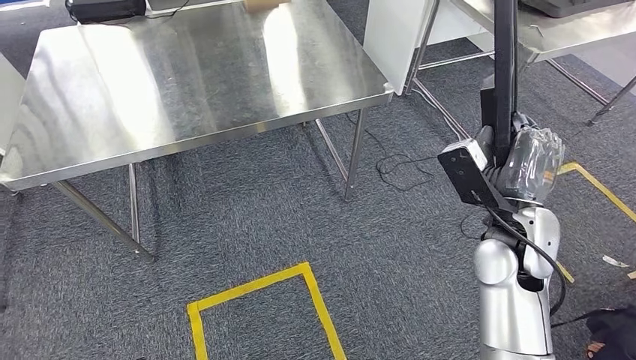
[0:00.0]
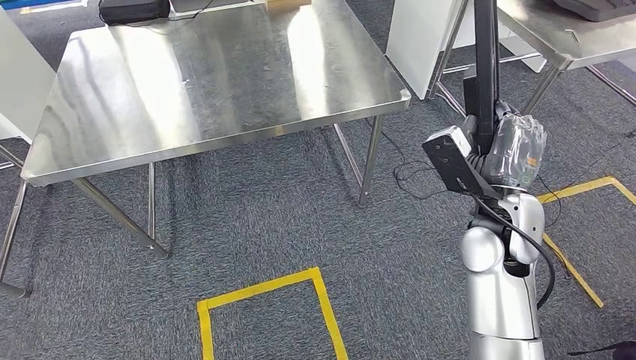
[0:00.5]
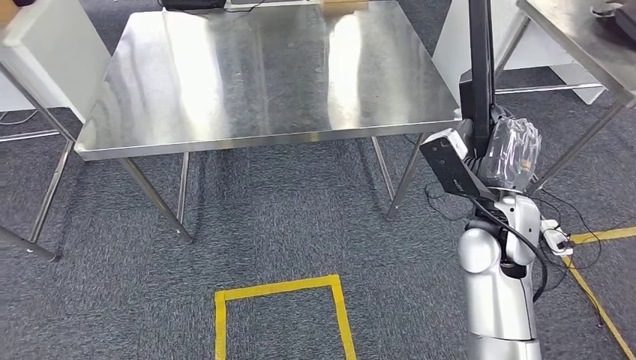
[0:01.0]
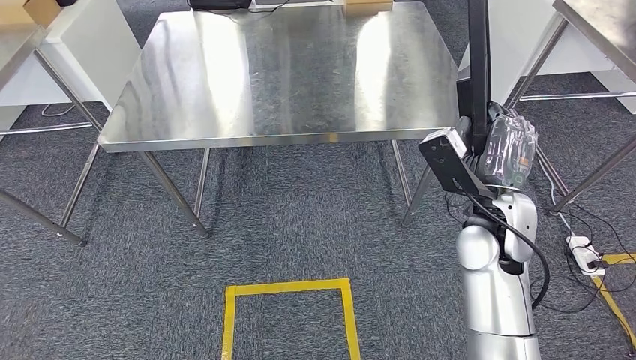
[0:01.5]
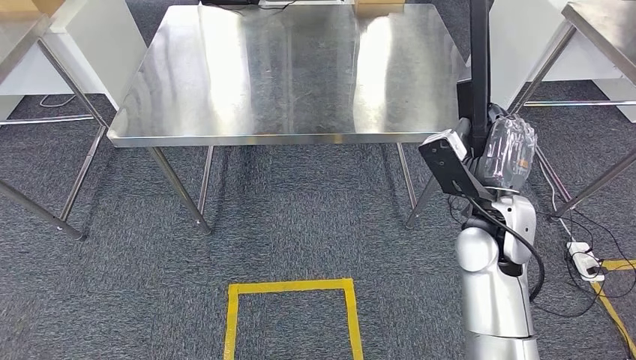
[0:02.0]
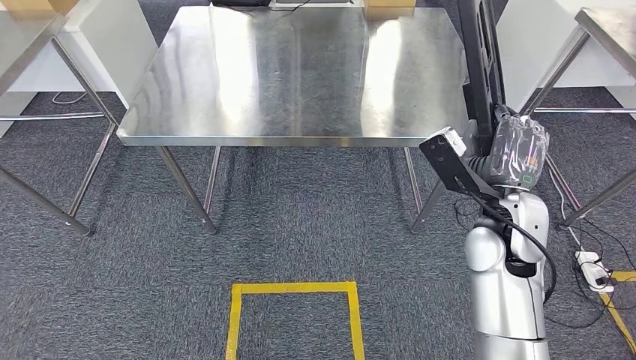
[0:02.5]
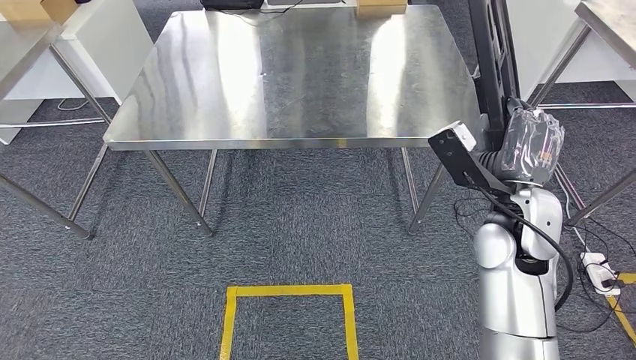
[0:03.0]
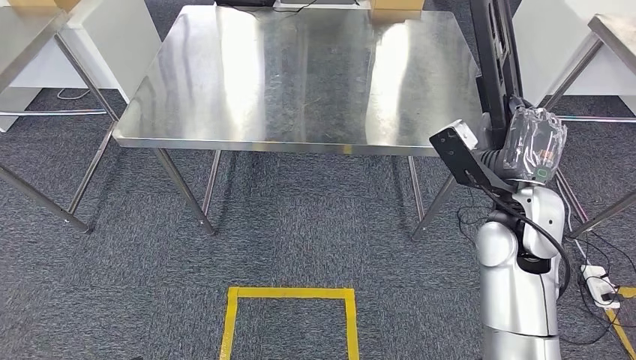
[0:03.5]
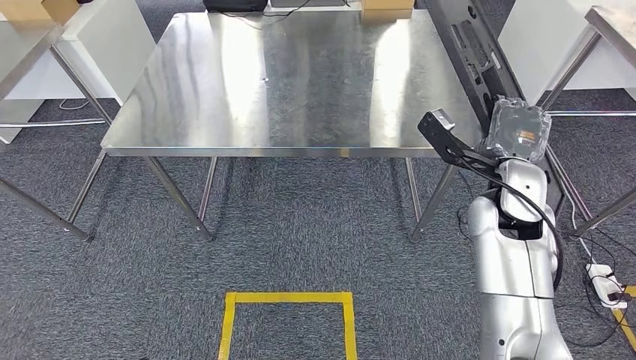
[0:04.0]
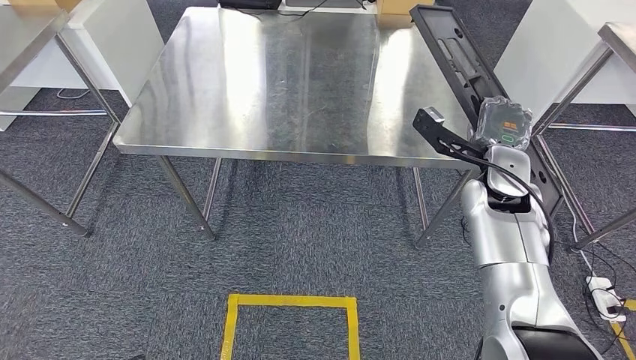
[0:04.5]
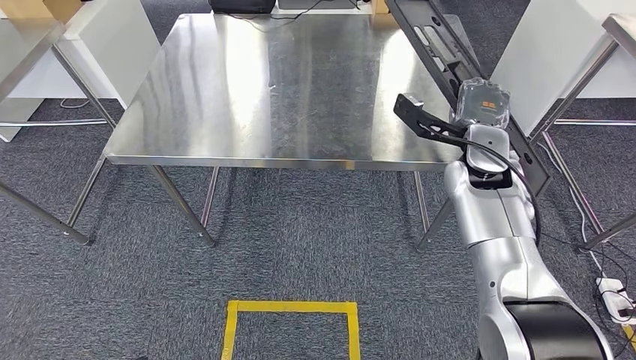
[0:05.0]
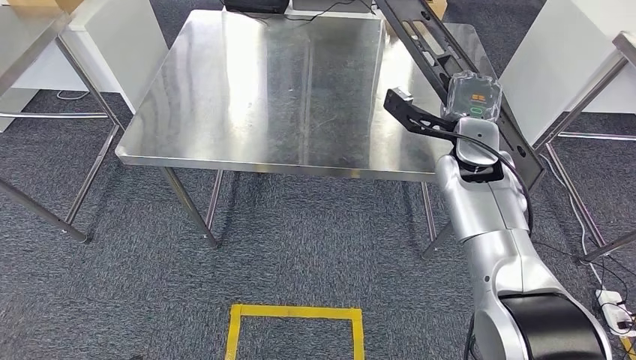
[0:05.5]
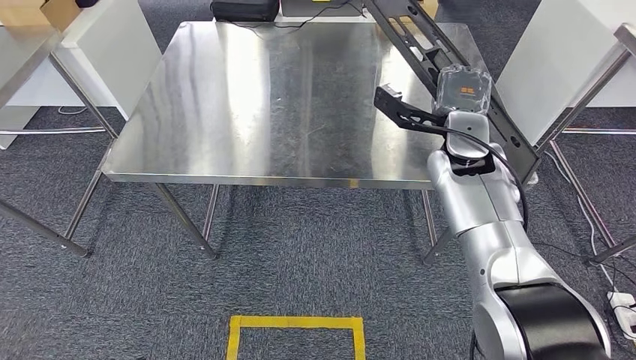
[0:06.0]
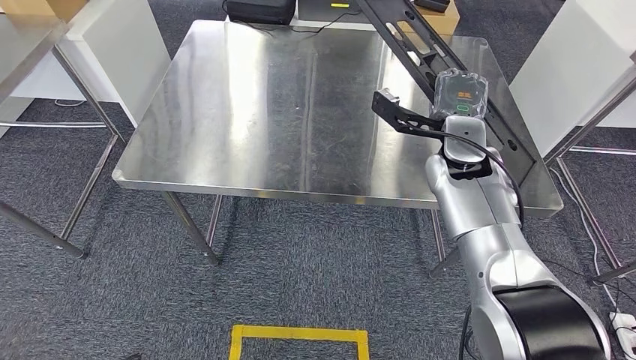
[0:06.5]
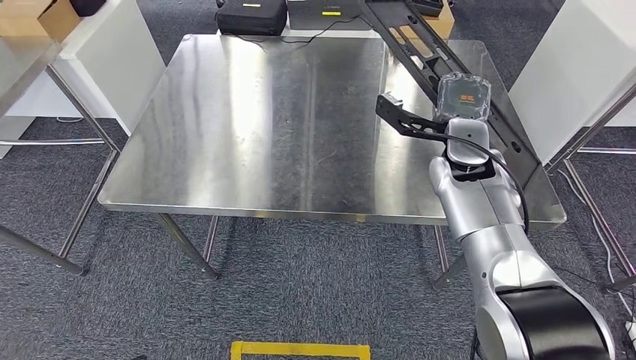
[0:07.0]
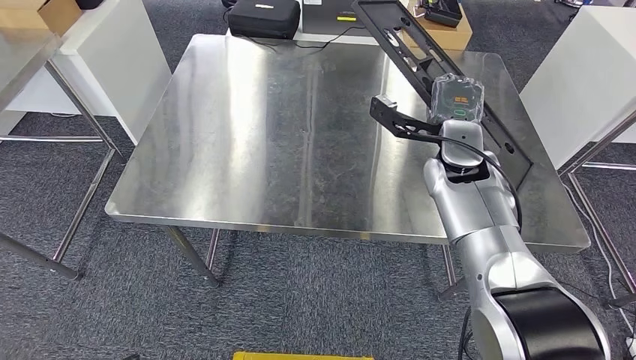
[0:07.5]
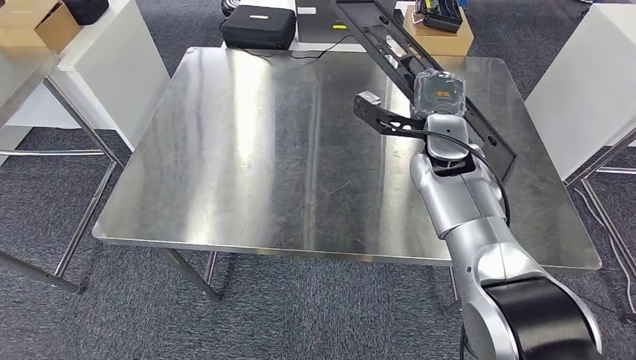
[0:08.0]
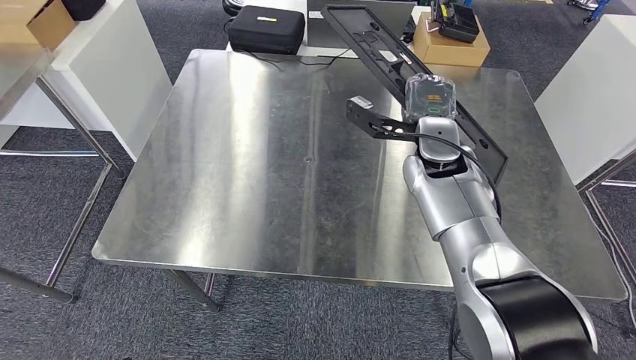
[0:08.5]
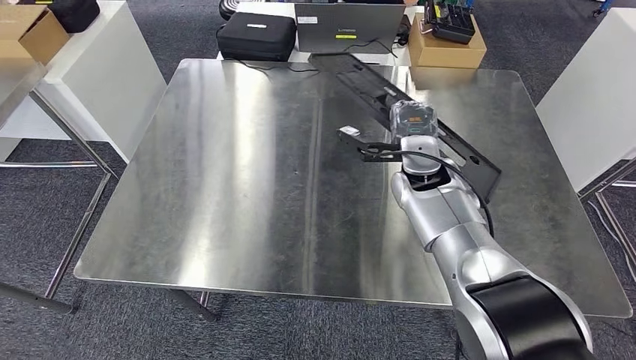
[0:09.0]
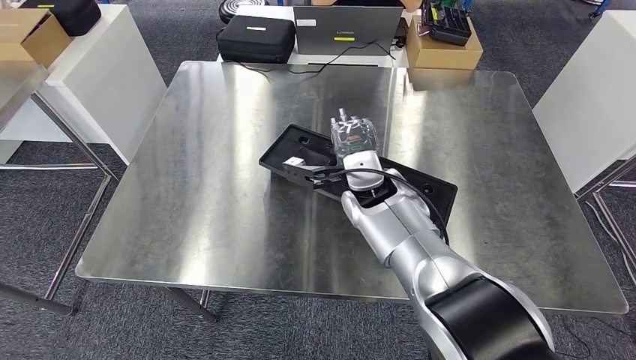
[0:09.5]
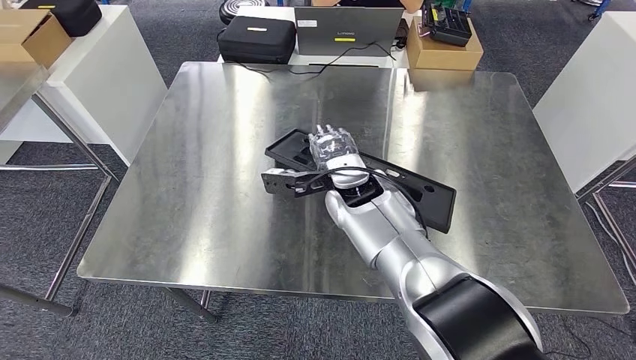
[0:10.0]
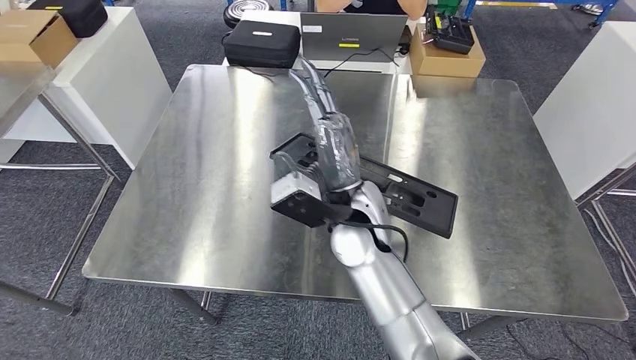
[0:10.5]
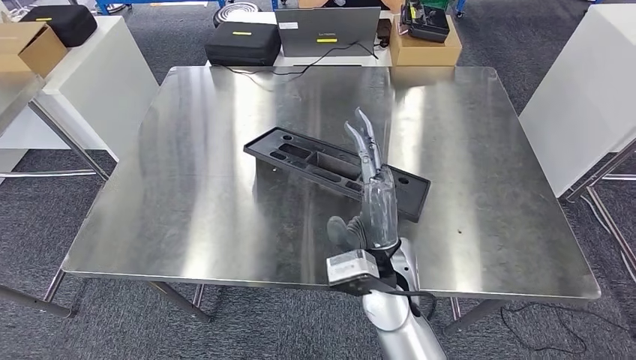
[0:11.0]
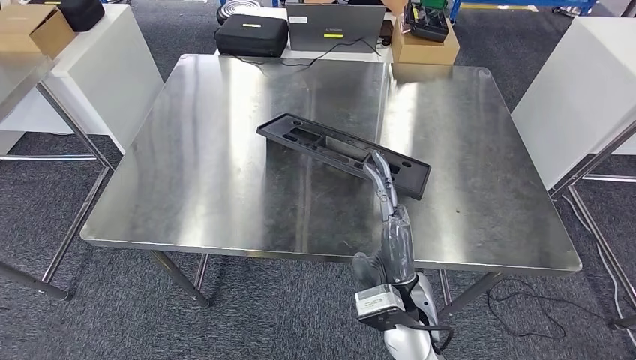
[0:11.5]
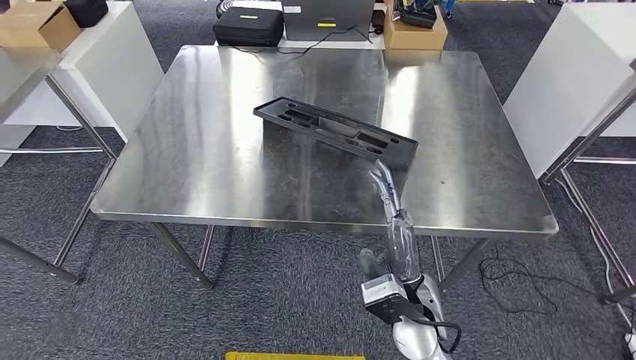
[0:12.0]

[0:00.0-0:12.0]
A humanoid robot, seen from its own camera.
Step, 0:00.0 to 0:11.5: Insert the large parts into the corresponding slots on the workbench.

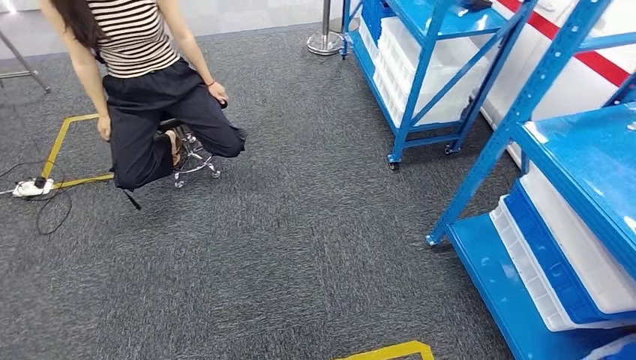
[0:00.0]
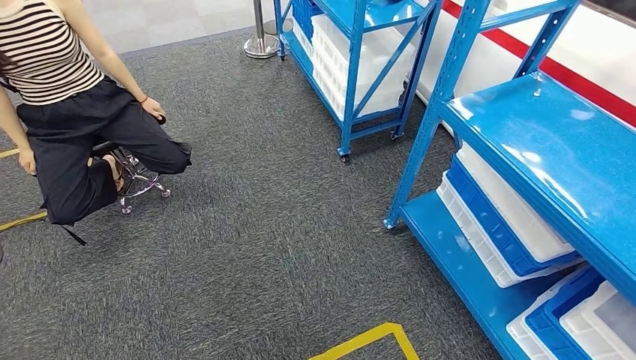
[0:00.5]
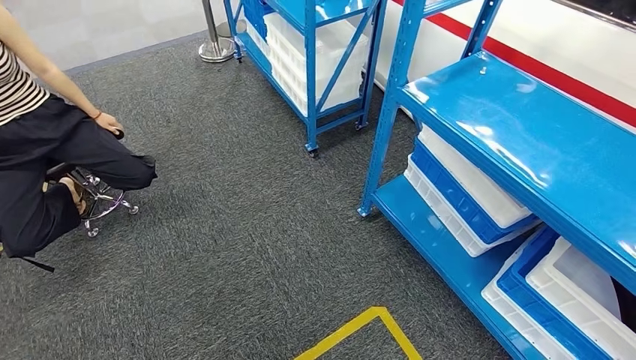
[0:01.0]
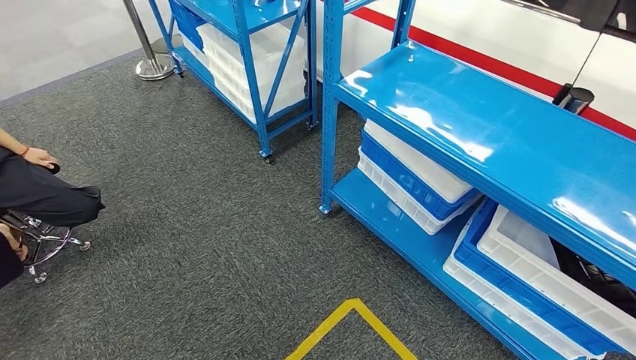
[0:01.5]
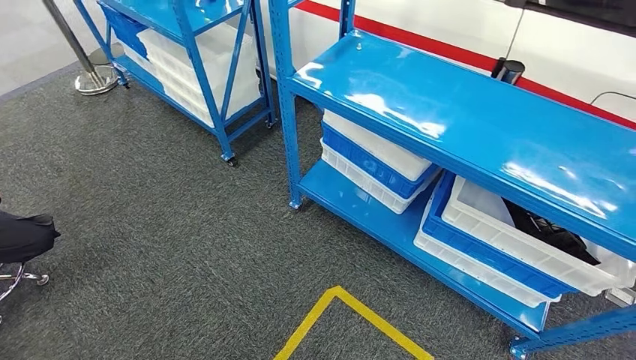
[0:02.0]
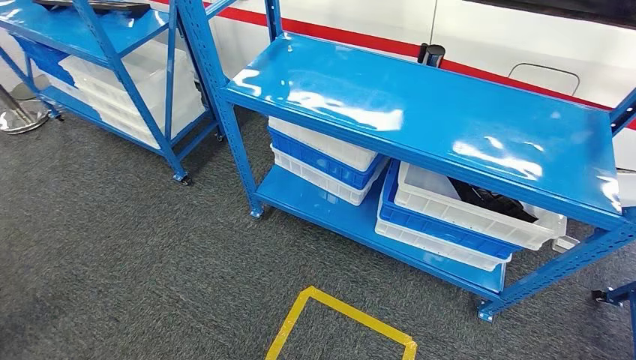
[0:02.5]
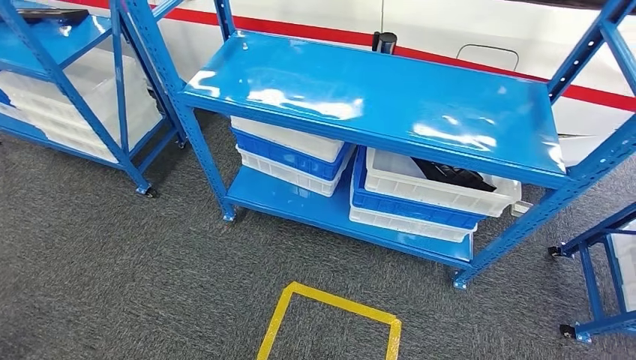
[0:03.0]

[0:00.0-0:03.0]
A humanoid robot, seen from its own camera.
Step, 0:00.0 to 0:03.0: Return to the initial position at the shelf.
